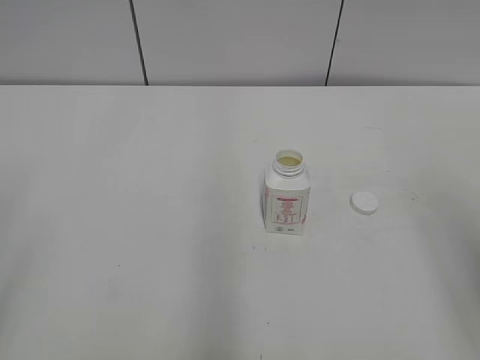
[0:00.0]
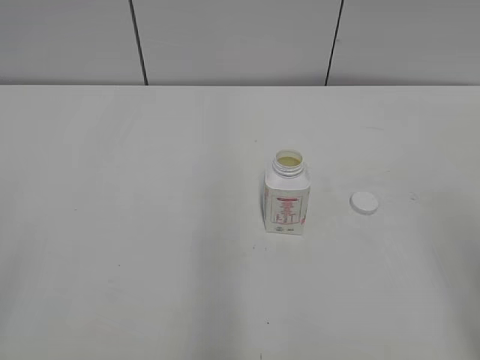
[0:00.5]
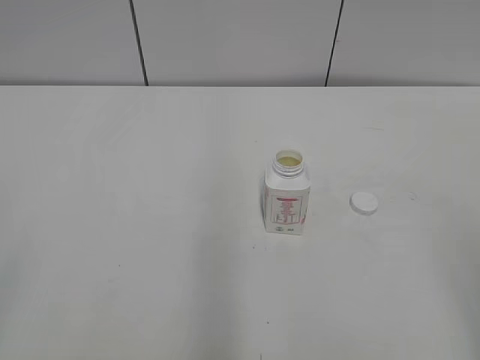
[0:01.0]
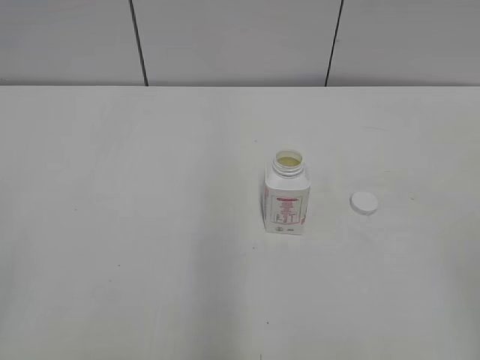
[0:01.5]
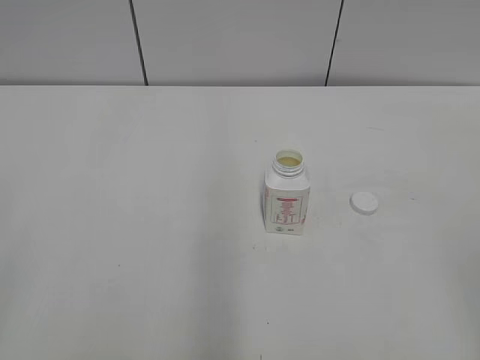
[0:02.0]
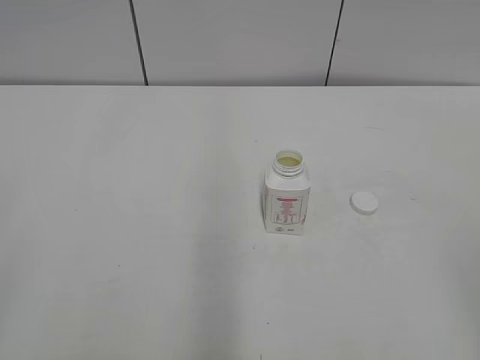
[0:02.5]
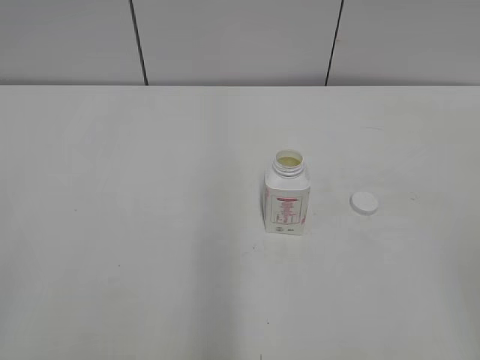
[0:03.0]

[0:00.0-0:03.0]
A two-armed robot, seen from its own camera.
0:01.5 to 0:03.0: The two grippers keep their place.
